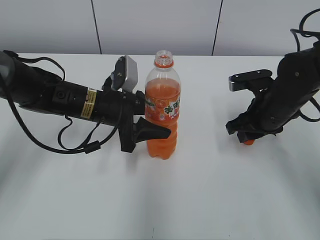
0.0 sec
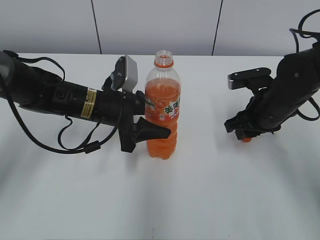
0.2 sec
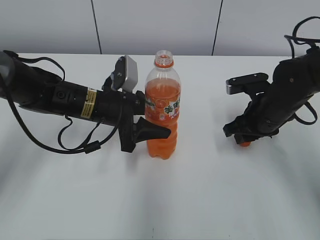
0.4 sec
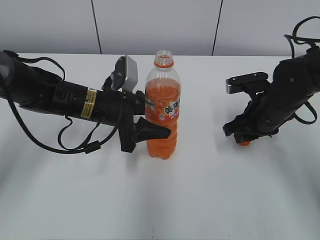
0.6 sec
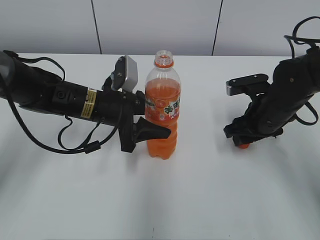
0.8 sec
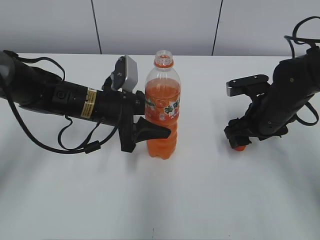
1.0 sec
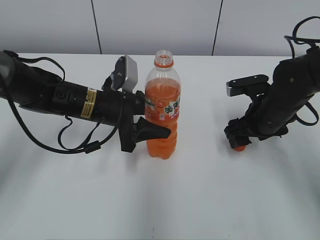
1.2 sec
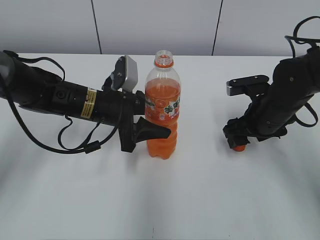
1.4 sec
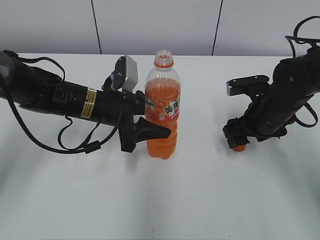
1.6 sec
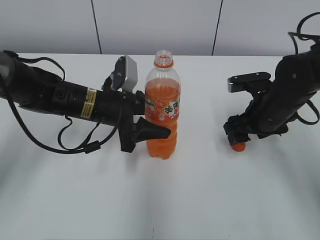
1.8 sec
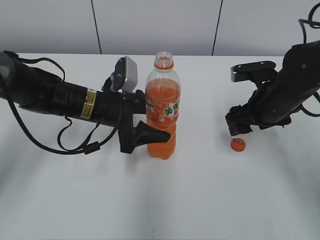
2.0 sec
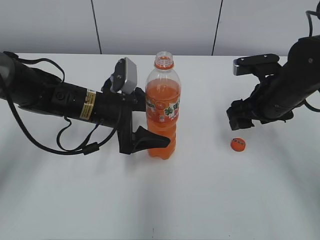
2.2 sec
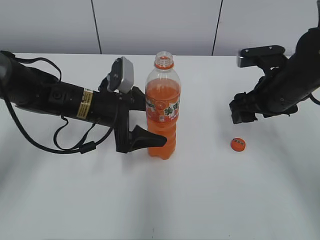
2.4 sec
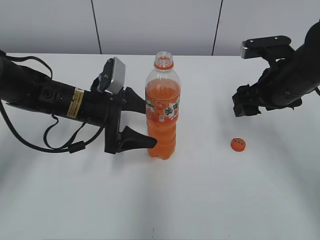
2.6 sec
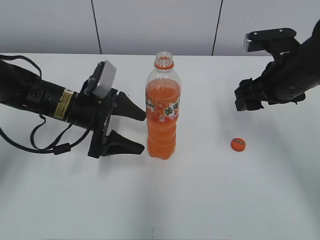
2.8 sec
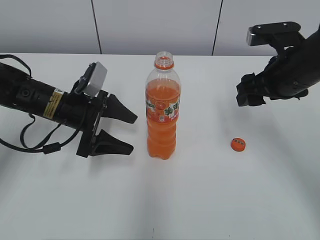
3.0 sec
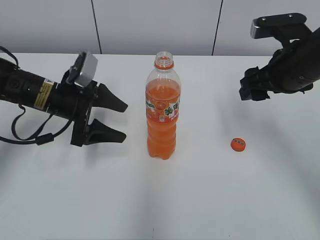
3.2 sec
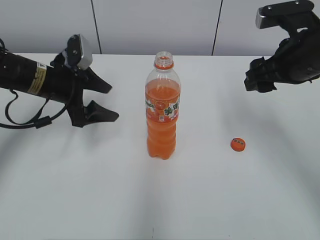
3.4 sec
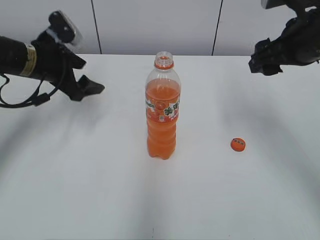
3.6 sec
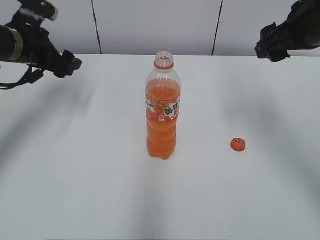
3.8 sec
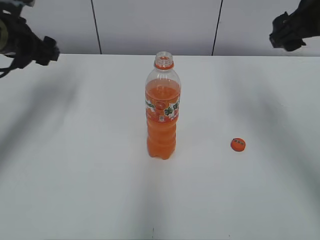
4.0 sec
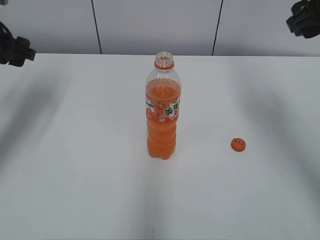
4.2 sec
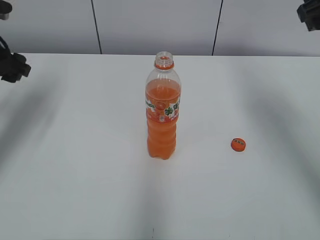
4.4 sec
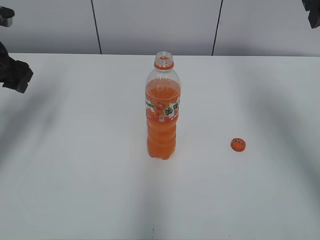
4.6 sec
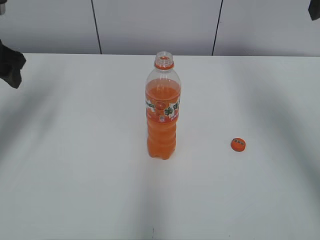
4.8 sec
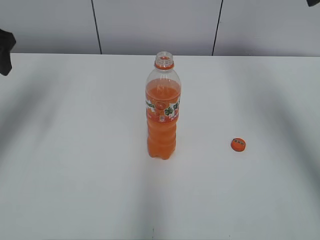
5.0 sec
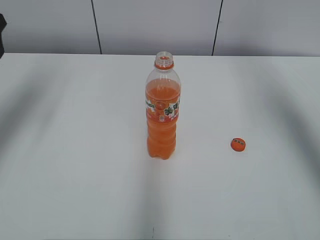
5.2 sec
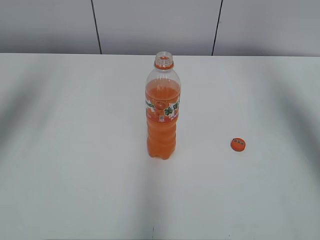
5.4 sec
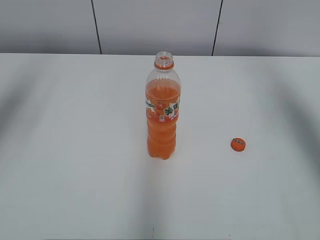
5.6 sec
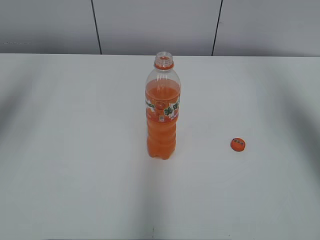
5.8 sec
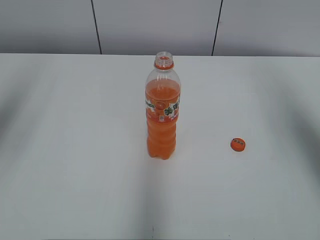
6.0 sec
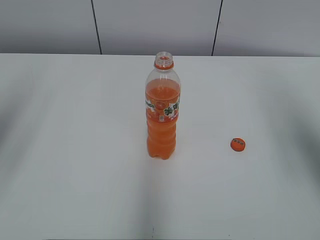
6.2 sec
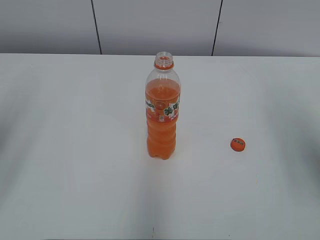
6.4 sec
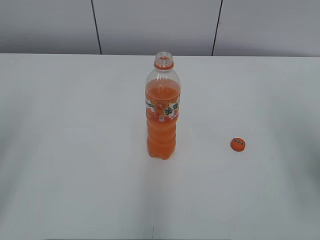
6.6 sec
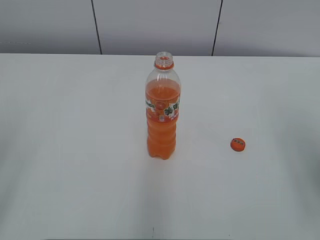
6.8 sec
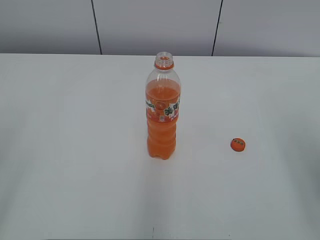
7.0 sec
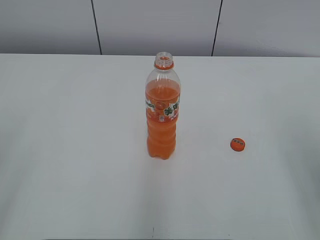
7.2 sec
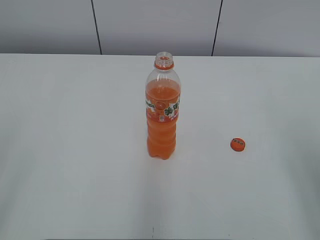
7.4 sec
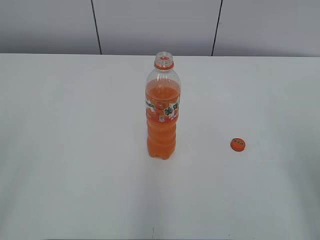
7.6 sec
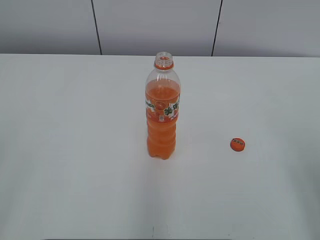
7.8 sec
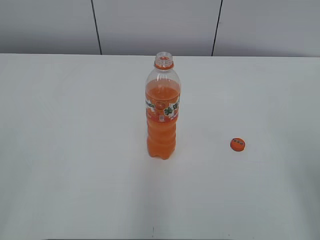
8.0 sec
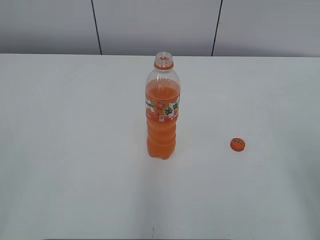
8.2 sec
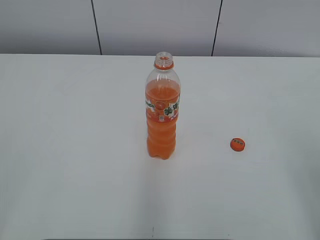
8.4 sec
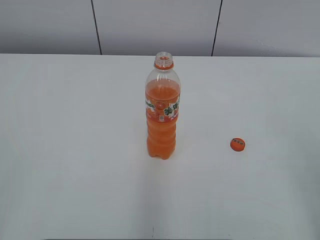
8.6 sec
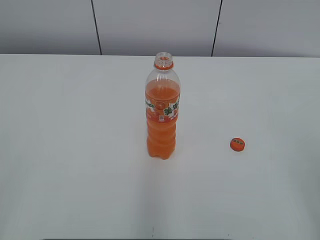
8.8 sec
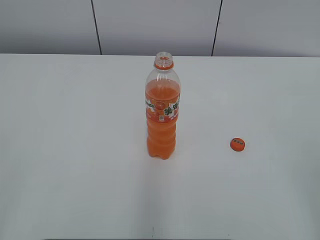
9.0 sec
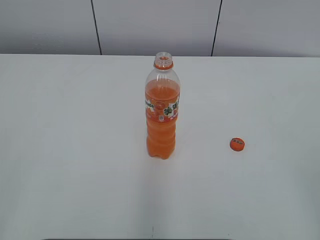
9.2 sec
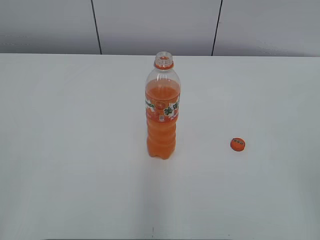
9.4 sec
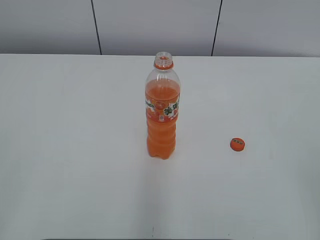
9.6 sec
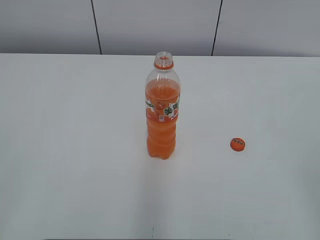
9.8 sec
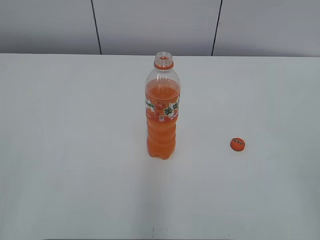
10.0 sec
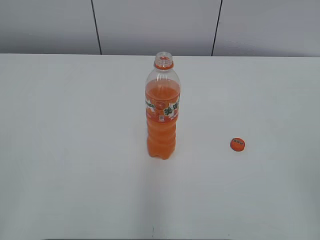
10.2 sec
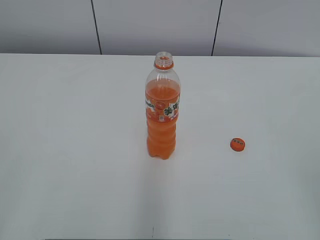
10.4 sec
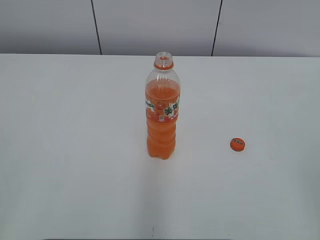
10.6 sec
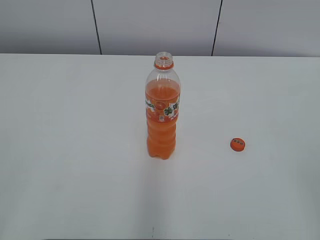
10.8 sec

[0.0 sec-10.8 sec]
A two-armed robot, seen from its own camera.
0.0 sec to 1.6 sec: The right gripper opens.
1.6 sec to 3.0 sec: The right gripper travels upward by roughly 10 cm, while the left gripper moves to the left, approximately 5 cm, and opens up.
3.0 sec to 4.6 sec: The right gripper goes some 15 cm upward. Meanwhile the left gripper heads to the left and upward, covering some 20 cm.
4.6 sec to 6.2 sec: The right gripper is displaced backward by roughly 10 cm; the left gripper heads backward and upward, covering roughly 20 cm.
6.2 sec to 7.8 sec: The right gripper is displaced backward and downward by approximately 15 cm. The left gripper heads backward, covering some 20 cm.
9.2 sec to 10.8 sec: Both grippers stay about where they are.
